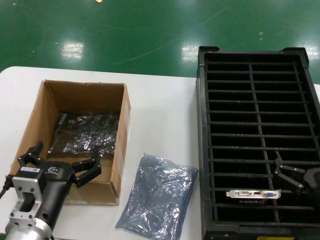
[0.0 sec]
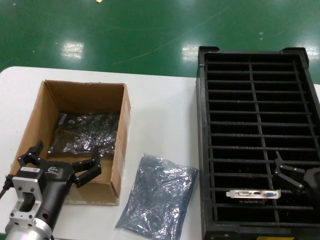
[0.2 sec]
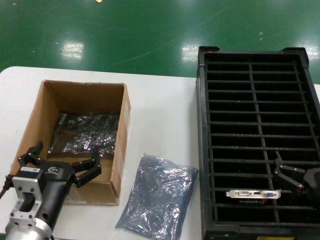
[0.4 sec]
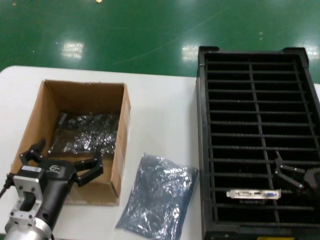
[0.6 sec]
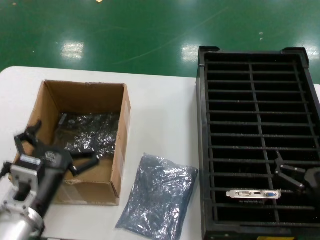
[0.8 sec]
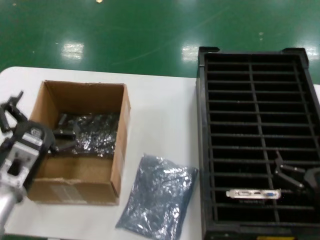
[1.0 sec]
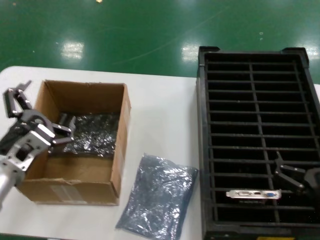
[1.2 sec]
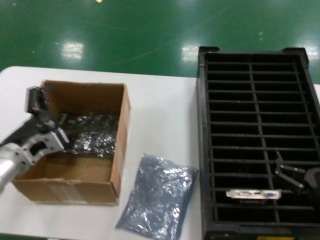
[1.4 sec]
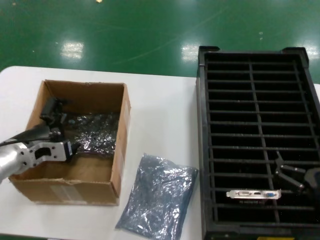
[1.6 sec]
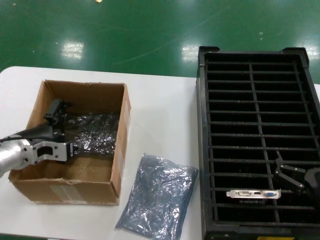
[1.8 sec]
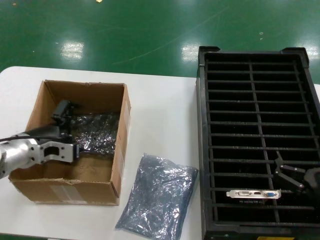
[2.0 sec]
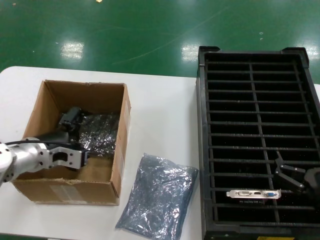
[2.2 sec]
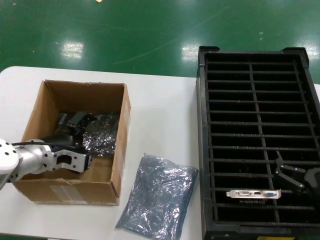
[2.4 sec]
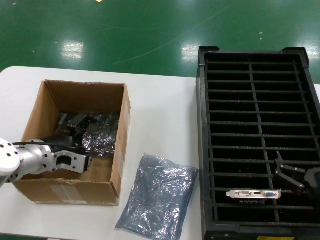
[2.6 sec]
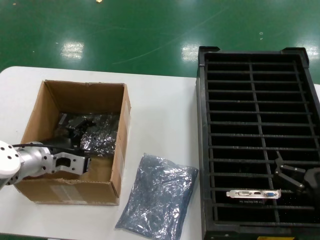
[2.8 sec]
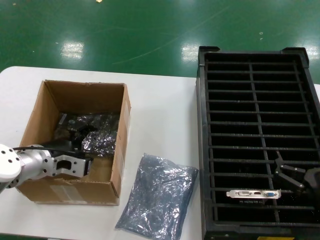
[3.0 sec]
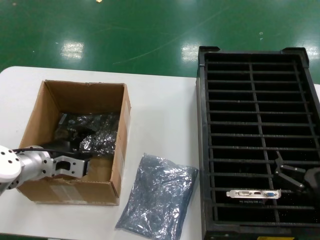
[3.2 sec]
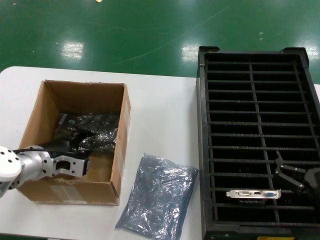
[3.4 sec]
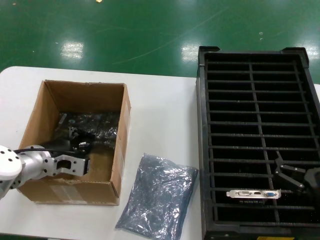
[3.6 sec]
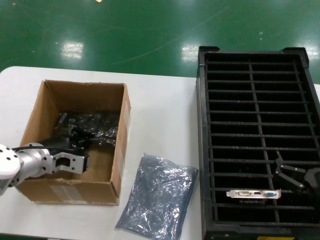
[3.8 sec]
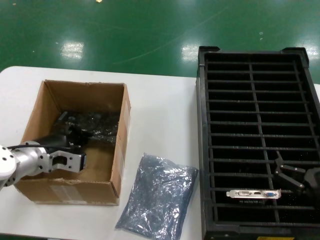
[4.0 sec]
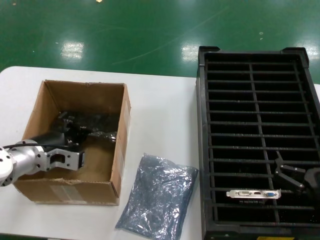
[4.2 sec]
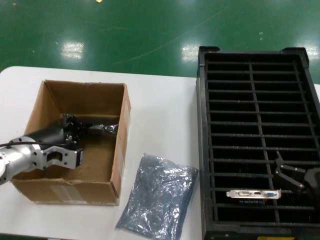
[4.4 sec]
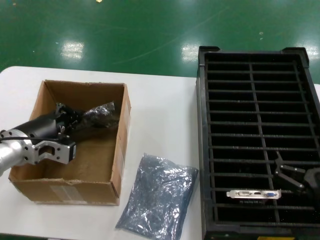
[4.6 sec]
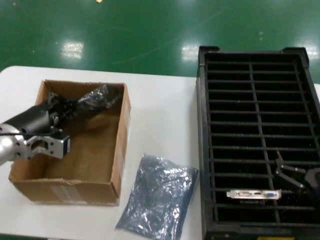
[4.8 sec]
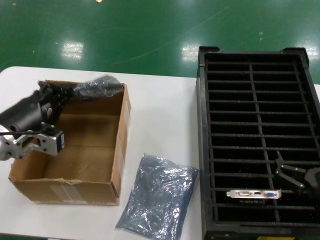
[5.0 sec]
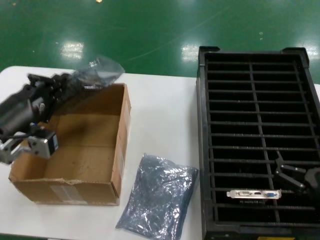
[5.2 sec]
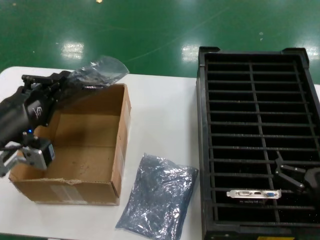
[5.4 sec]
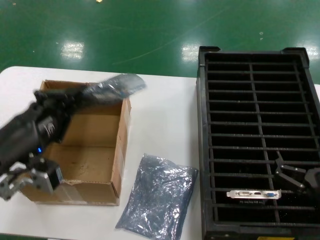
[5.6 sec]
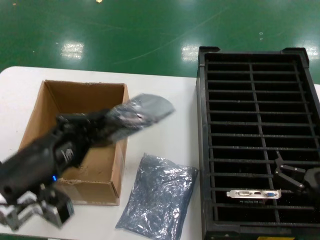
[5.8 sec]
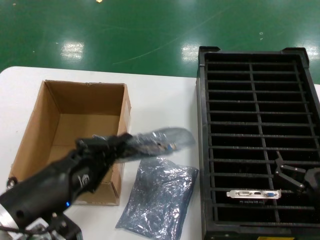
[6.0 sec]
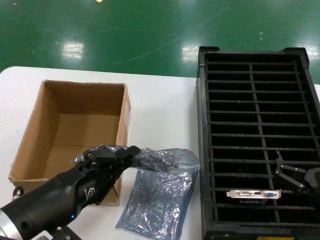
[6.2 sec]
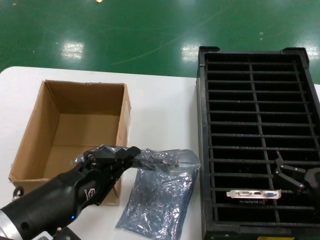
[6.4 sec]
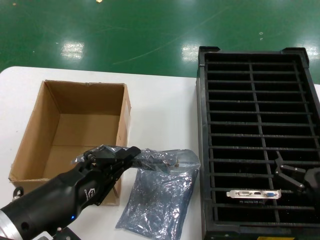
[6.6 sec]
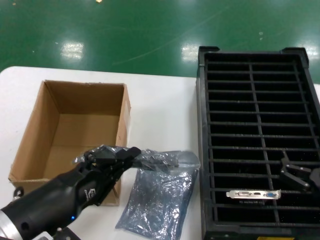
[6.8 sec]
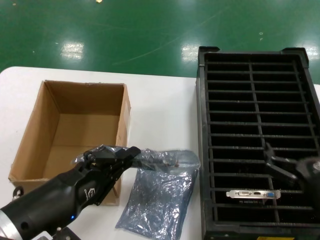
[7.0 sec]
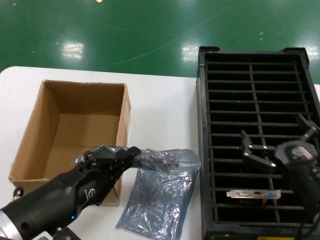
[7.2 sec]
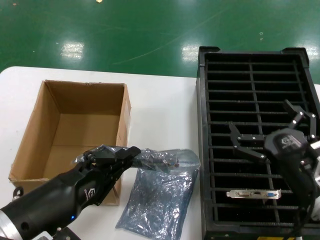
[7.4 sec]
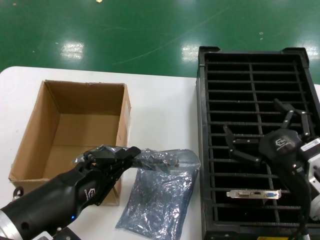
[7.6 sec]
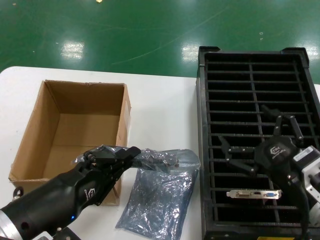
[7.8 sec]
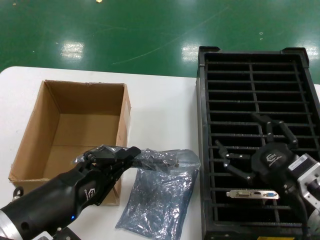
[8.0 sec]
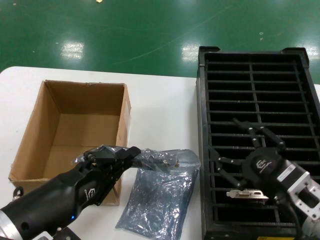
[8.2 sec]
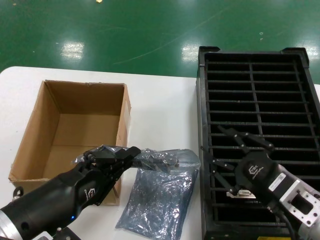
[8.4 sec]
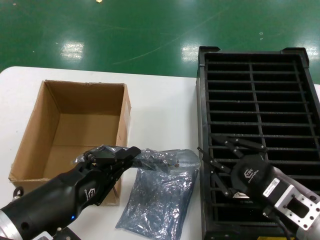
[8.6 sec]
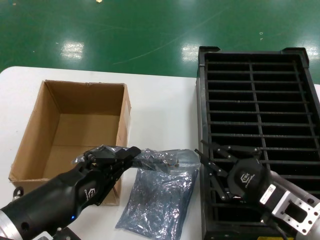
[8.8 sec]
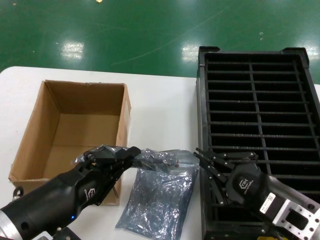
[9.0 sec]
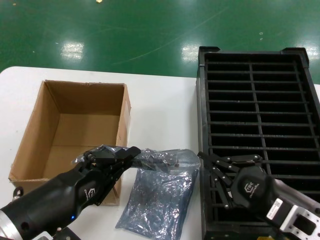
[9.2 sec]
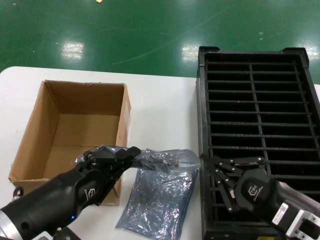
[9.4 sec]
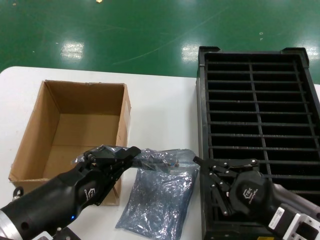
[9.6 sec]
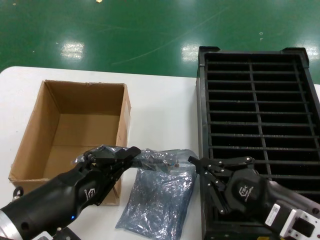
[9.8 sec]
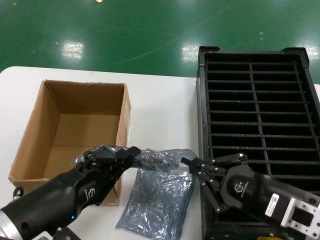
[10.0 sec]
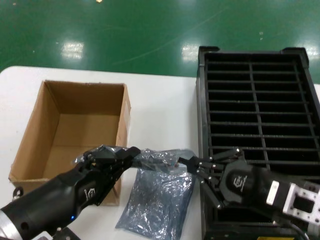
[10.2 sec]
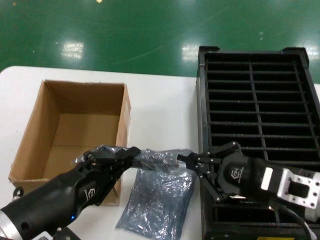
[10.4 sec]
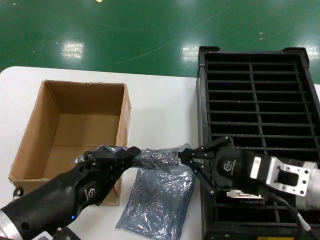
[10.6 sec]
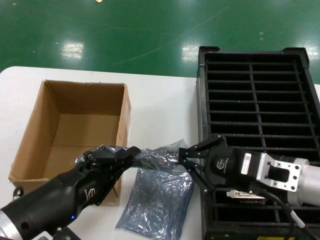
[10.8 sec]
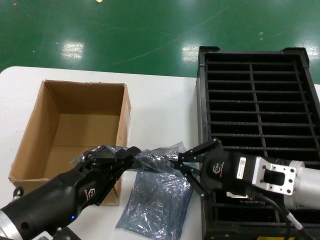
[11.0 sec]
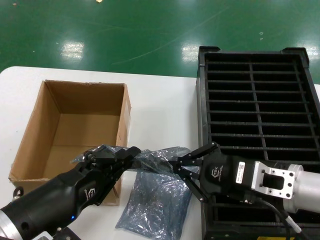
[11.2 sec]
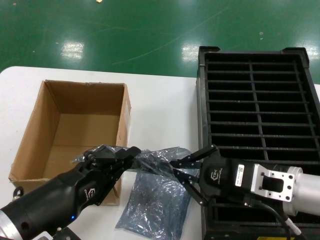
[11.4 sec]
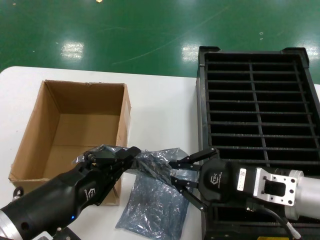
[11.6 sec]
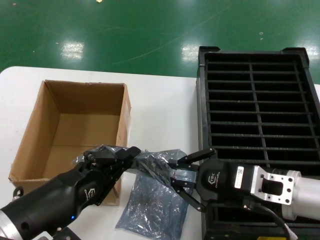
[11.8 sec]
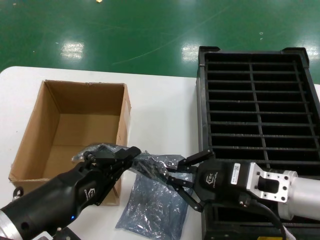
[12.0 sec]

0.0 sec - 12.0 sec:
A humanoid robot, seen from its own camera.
Task of the whole recording: take out graphics card from box remove packaging put into black container.
Step, 0.0 sec - 3.6 sec: Grasp the bag.
Step, 3.8 sec - 7.0 sec: Lift the bag.
0.0 sec - 1.6 sec: The left hand travels forward and to the left by some 20 cm.
3.0 sec - 4.4 sec: The hands move only a little.
4.4 sec - 6.0 sec: The left hand is displaced backward by about 20 cm.
6.0 sec - 7.6 sec: The right hand is displaced upward by about 5 cm.
9.0 sec - 10.4 sec: The right hand travels upward by about 5 cm.
10.4 sec - 12.0 sec: The hands make only small movements.

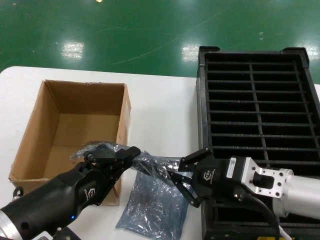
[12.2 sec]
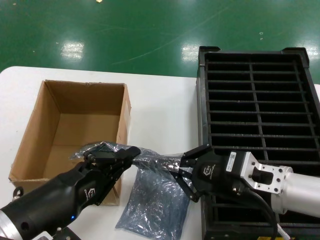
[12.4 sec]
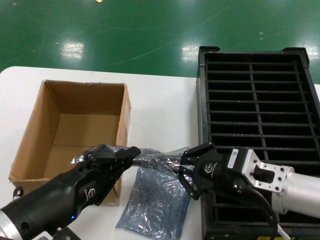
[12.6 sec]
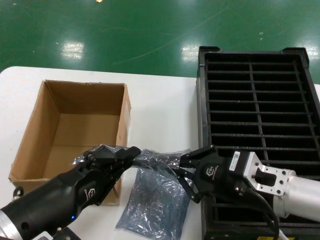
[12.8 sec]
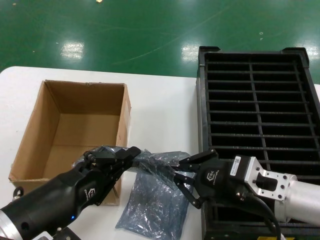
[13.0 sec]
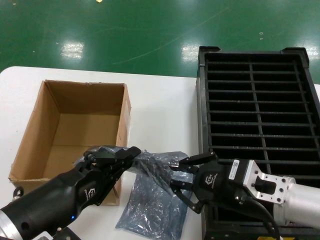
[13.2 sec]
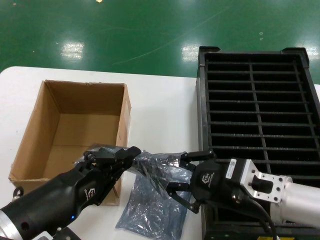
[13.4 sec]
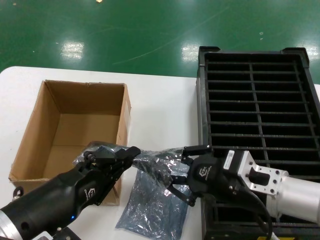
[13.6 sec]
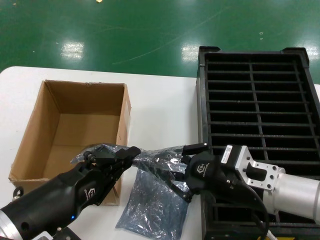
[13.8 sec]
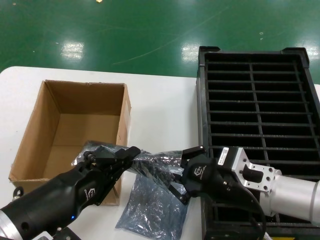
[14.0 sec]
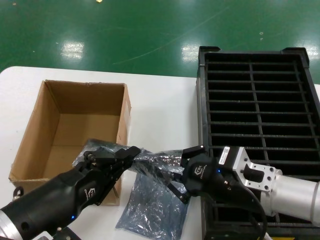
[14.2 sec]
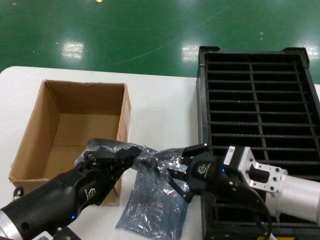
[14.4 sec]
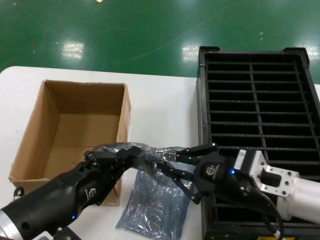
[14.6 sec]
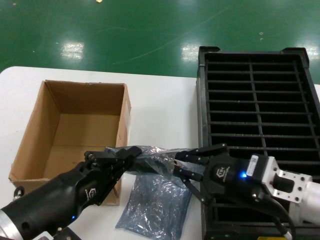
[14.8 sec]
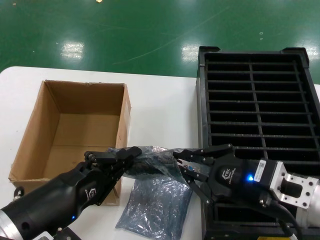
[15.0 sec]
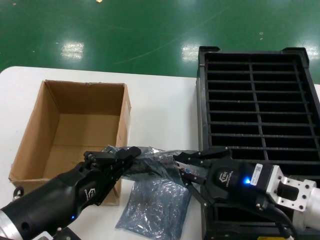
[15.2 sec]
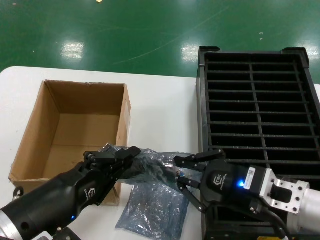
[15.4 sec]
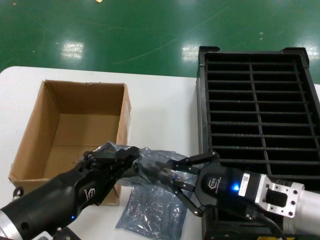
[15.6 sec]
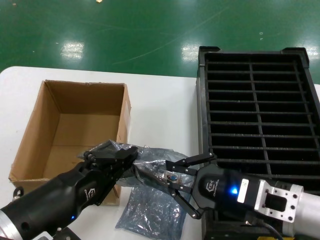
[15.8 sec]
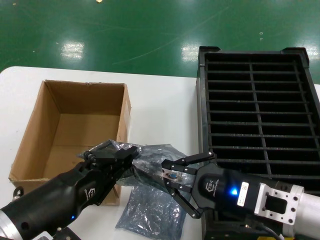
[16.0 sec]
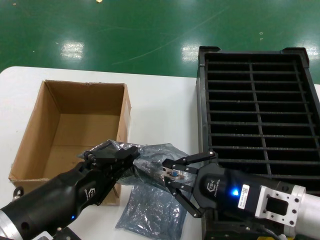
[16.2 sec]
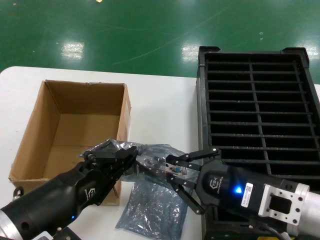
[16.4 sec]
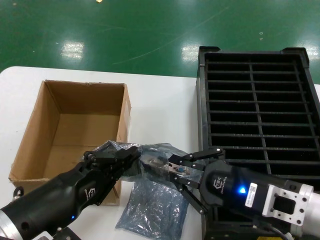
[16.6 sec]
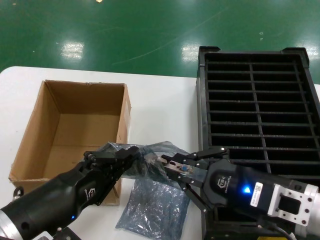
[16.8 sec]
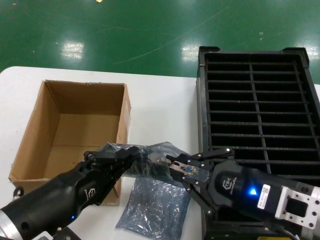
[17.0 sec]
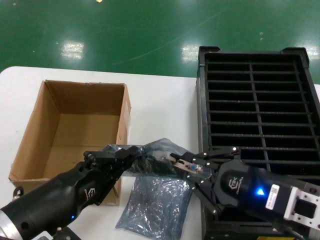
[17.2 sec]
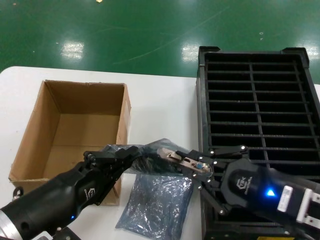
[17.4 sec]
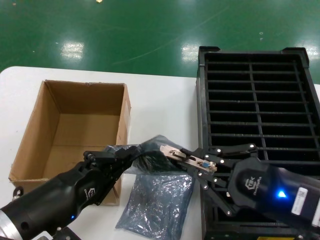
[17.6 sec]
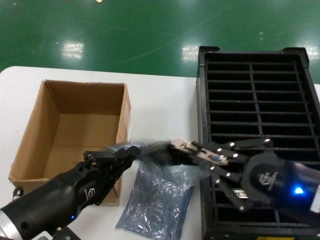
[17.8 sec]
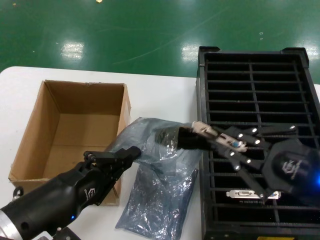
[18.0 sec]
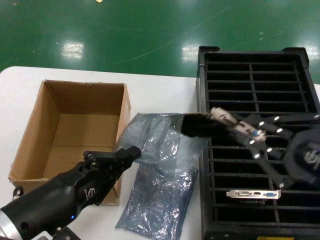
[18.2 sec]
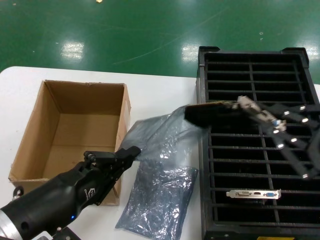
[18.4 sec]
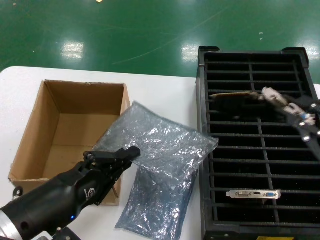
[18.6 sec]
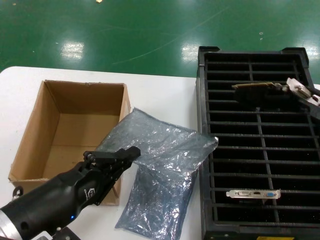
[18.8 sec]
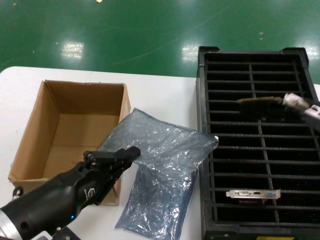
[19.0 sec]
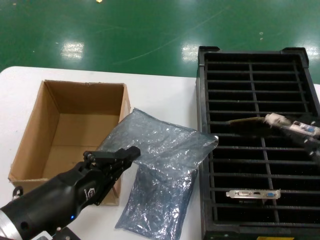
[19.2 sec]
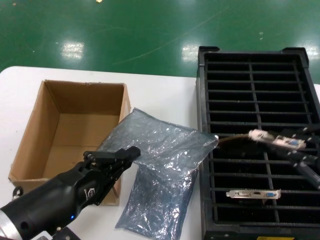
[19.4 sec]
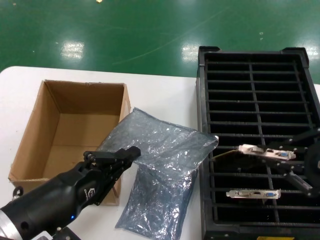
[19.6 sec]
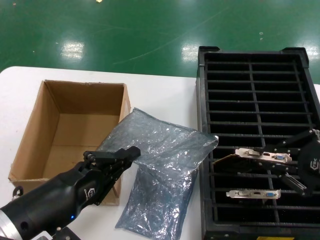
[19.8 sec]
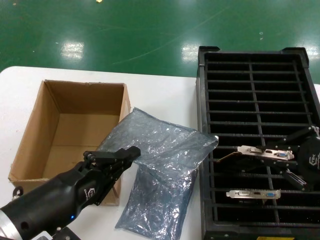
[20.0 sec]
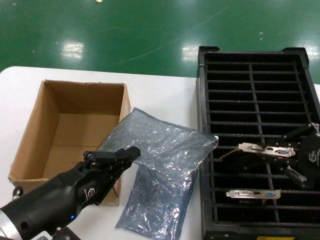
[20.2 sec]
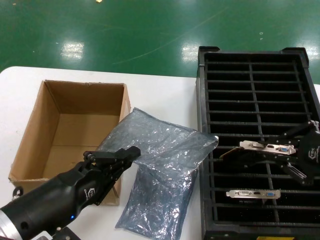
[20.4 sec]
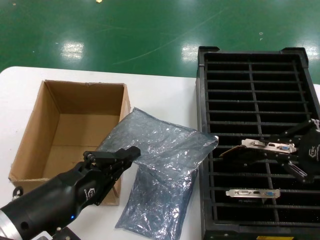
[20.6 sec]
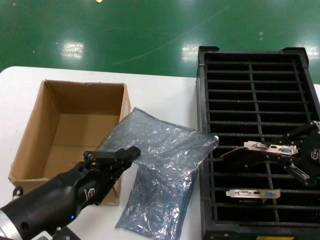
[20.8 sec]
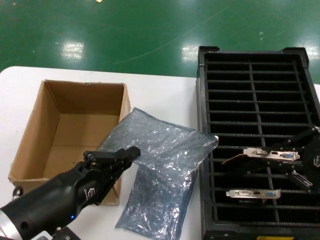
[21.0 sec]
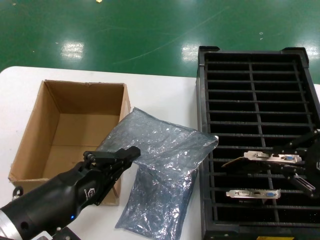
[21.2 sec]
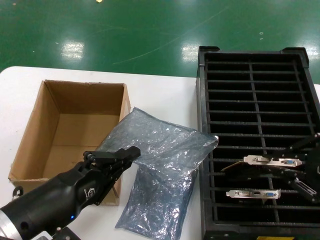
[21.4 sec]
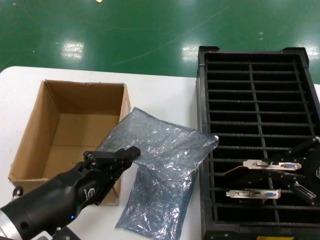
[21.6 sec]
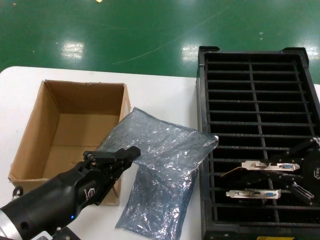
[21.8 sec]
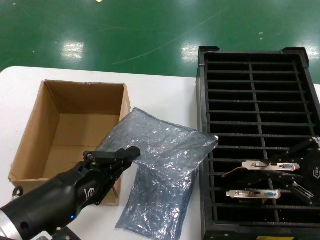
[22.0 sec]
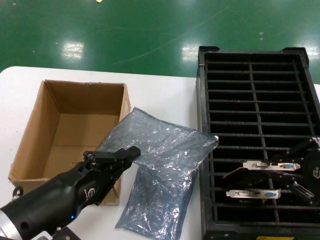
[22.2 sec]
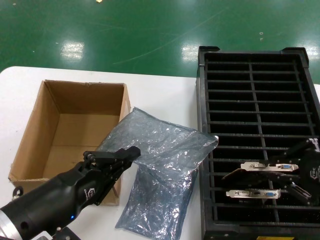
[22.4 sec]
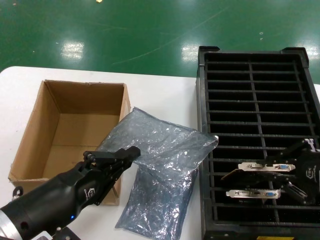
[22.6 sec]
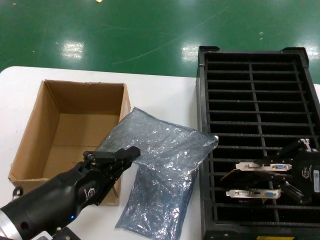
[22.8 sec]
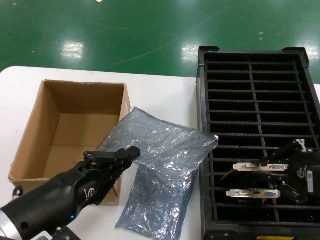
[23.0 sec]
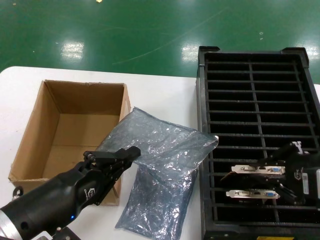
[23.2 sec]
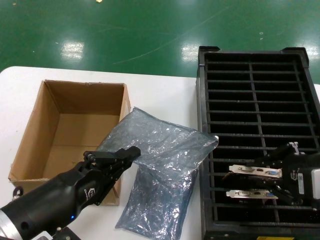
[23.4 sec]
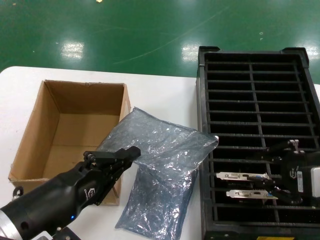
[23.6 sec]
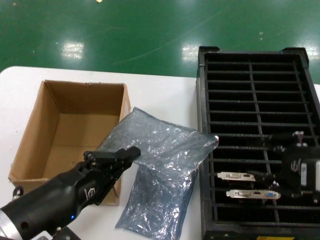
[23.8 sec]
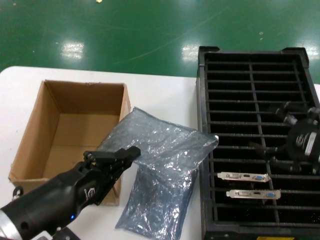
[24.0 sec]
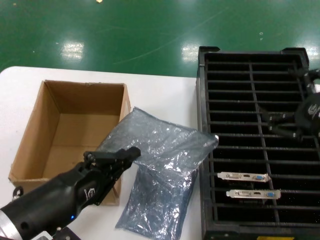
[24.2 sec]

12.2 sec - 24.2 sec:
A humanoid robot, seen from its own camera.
Task of the whole recording: take out graphics card from box remove packaging put into black container.
Step, 12.2 sec - 18.4 sec: Take out the hard disk of the bag.
Step, 18.6 sec - 24.0 sec: Place the hard disk in the hard disk enclosure.
12.2 sec - 16.6 sec: The hands stay close to where they were, moving slightly.
16.6 sec - 18.2 sec: The right hand heads to the right, upward and backward, covering some 15 cm.
18.2 sec - 19.8 sec: The right hand shifts roughly 5 cm forward.
19.8 sec - 22.6 sec: The hands make only small movements.
